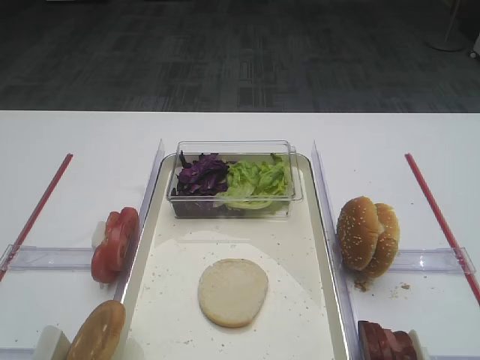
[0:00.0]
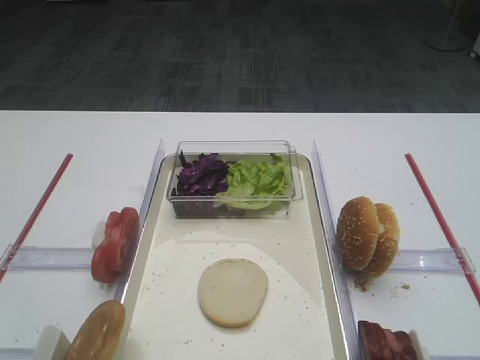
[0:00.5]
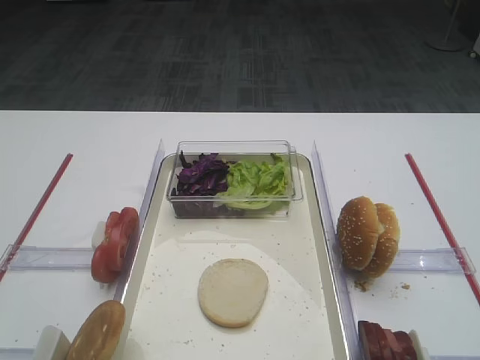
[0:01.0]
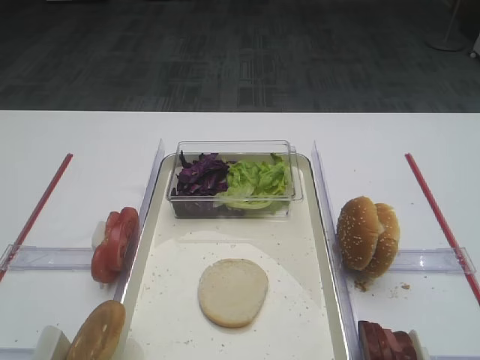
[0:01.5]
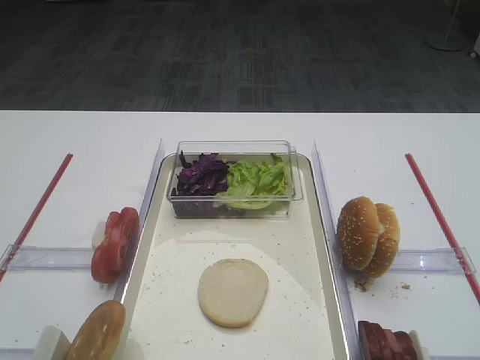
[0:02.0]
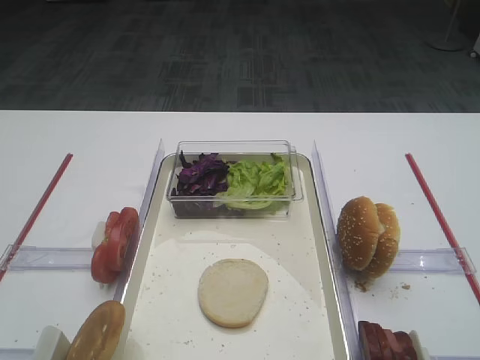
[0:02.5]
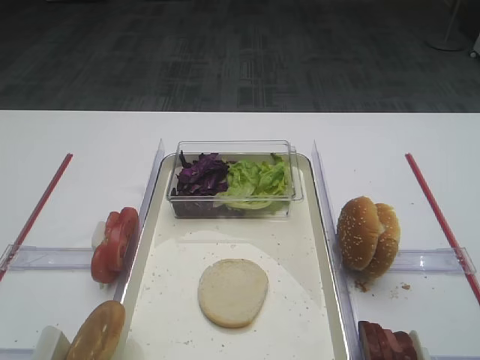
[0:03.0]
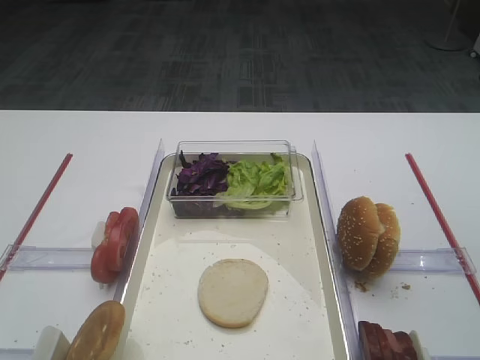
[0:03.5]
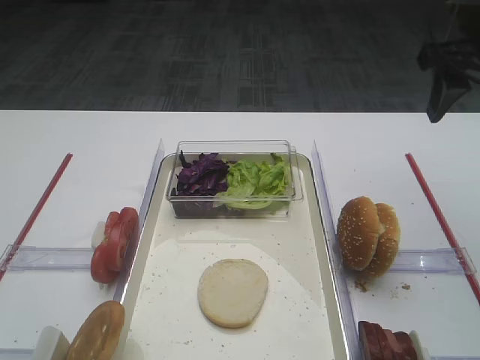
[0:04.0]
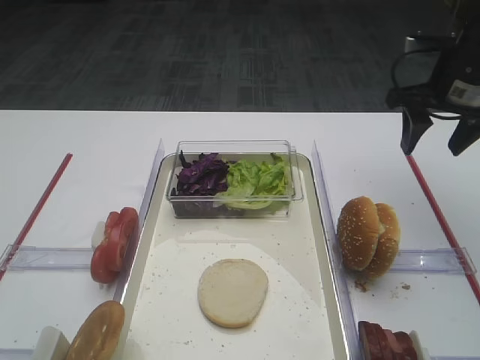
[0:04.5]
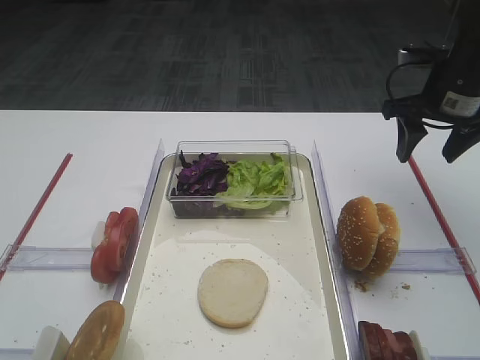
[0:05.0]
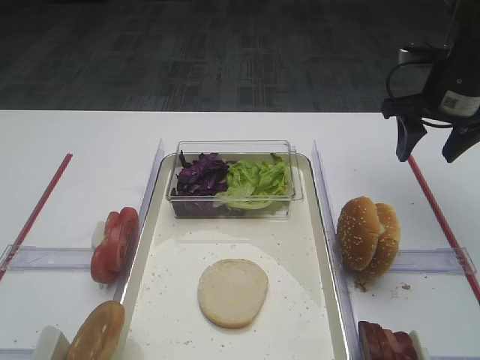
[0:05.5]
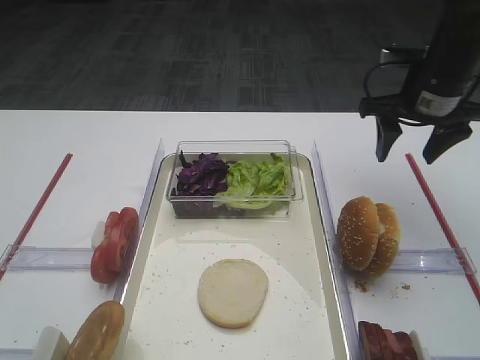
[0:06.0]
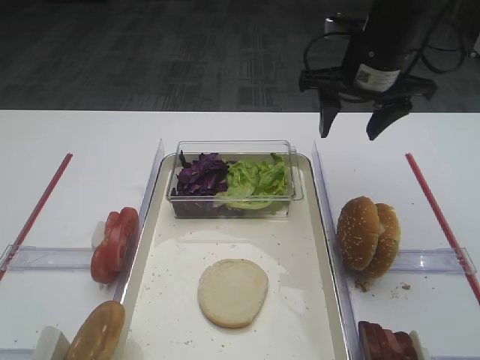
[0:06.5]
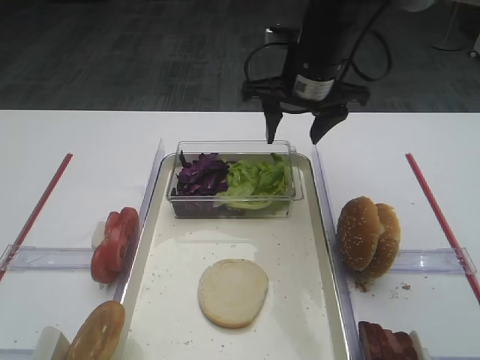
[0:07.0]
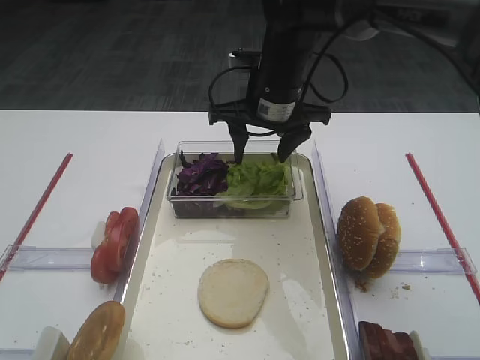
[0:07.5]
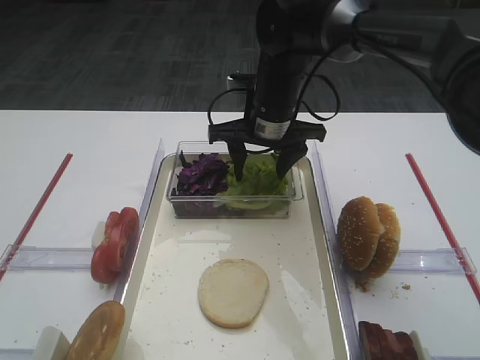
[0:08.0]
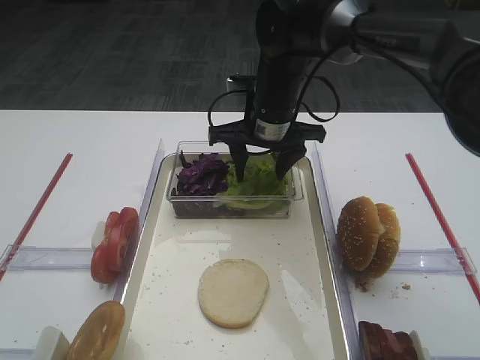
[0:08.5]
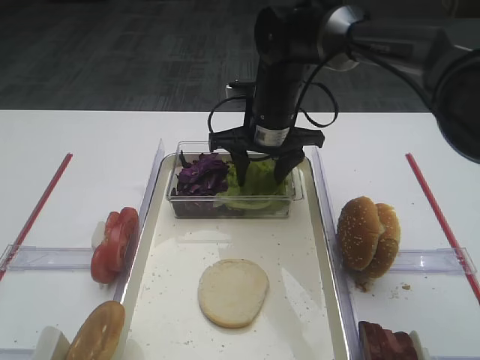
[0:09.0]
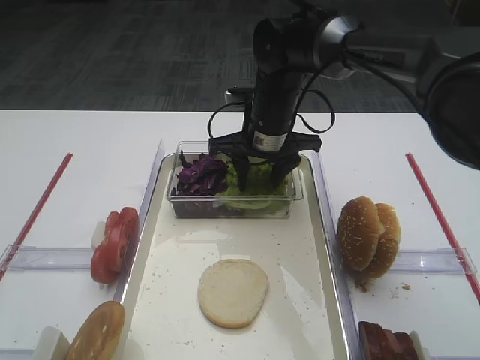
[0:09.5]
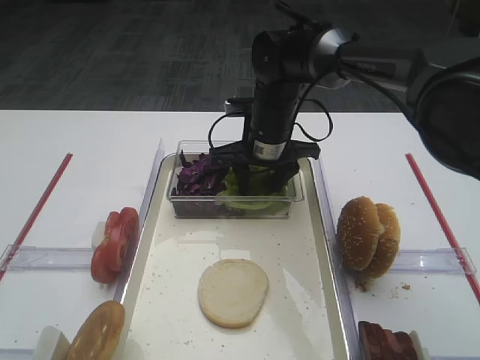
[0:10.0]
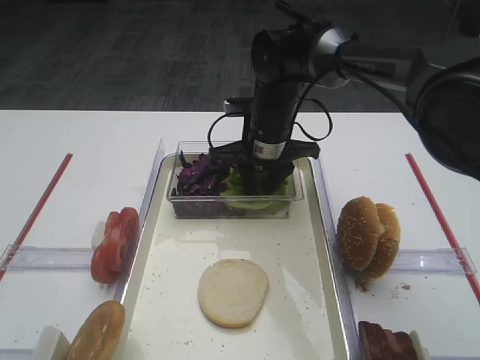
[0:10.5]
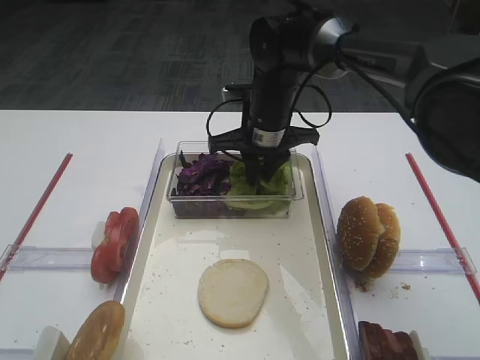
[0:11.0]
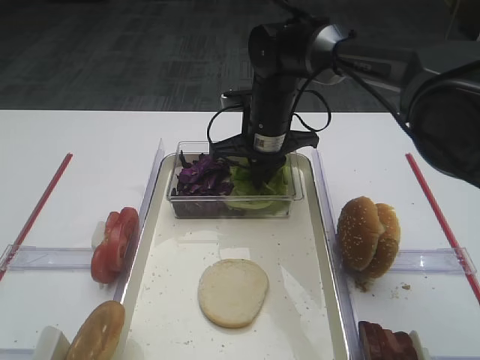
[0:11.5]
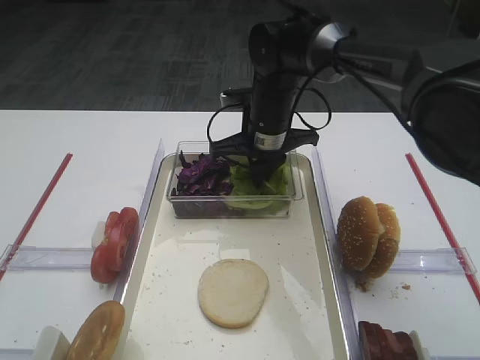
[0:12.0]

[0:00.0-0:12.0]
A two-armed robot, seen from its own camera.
0:02.0 to 0:04.0: The right gripper goes approximately 35 cm forward.
0:04.0 to 0:06.0: The right gripper goes roughly 10 cm downward and forward.
0:06.0 to 0:08.0: The right gripper is displaced to the left by some 20 cm.
0:08.0 to 0:10.0: The grippers stay close to where they were, moving slightly.
0:10.0 to 0:12.0: The right gripper closes up.

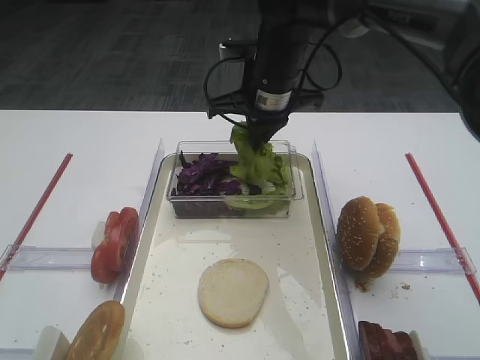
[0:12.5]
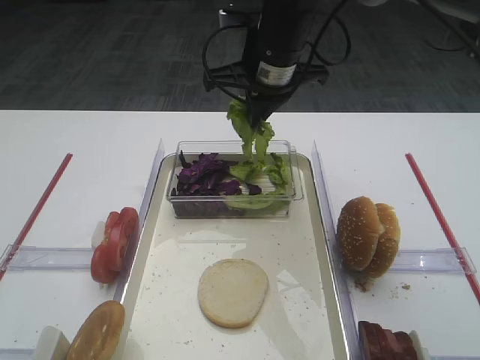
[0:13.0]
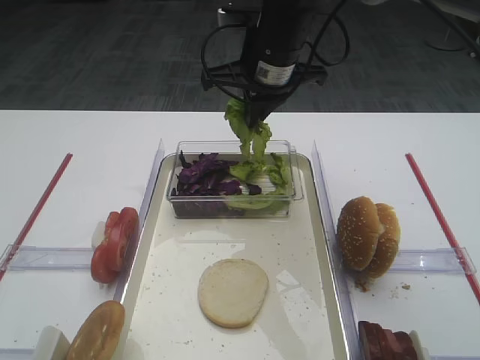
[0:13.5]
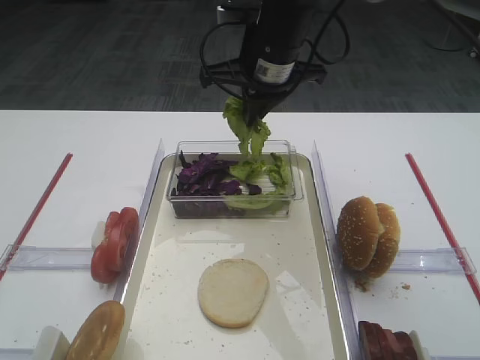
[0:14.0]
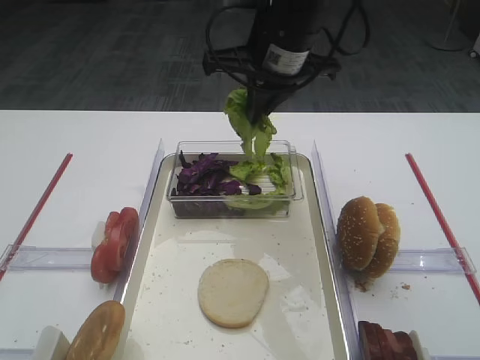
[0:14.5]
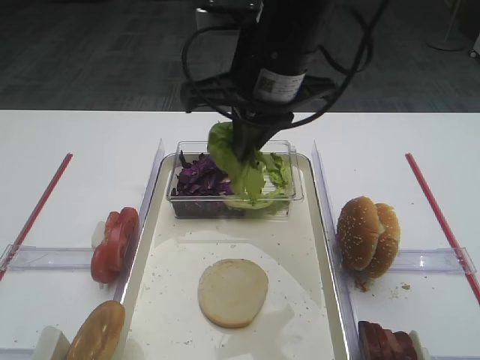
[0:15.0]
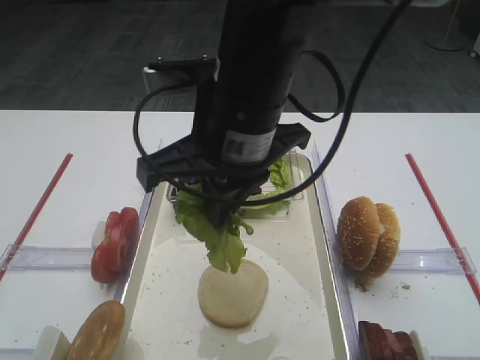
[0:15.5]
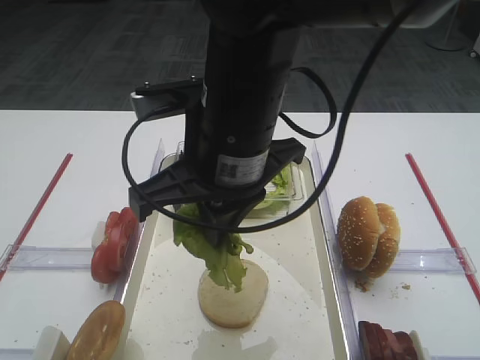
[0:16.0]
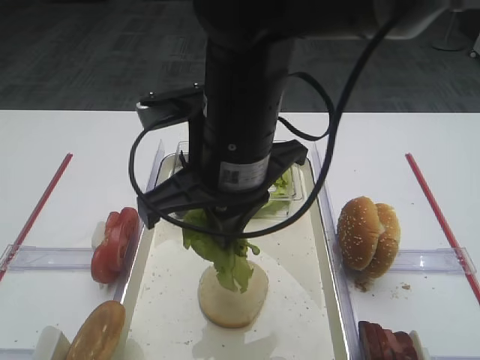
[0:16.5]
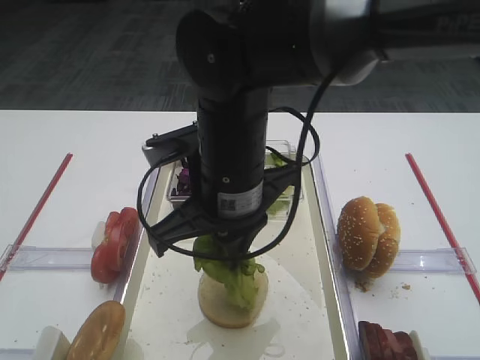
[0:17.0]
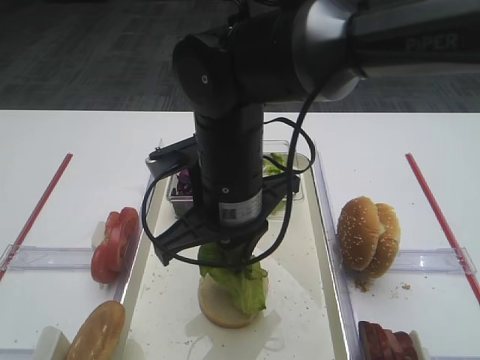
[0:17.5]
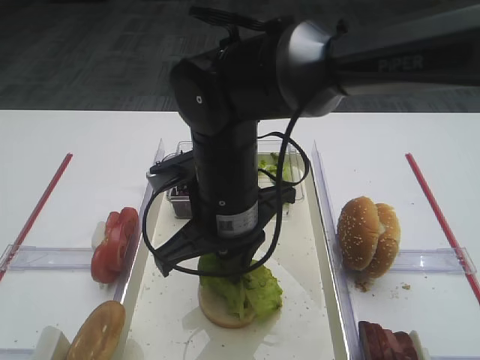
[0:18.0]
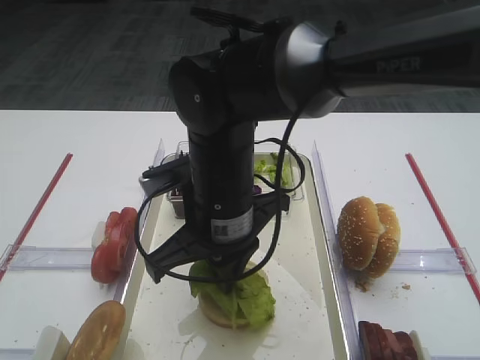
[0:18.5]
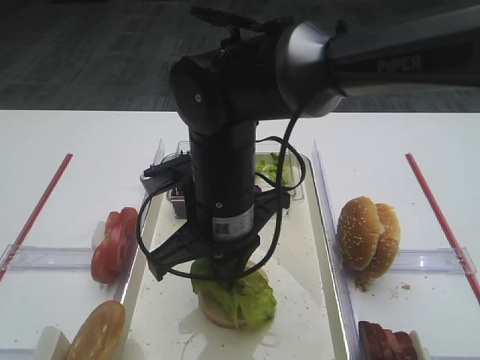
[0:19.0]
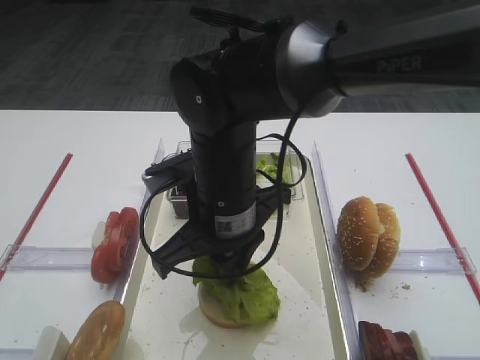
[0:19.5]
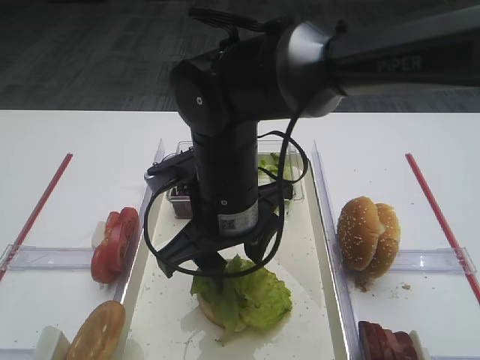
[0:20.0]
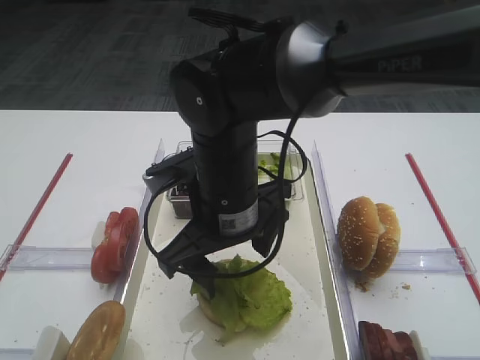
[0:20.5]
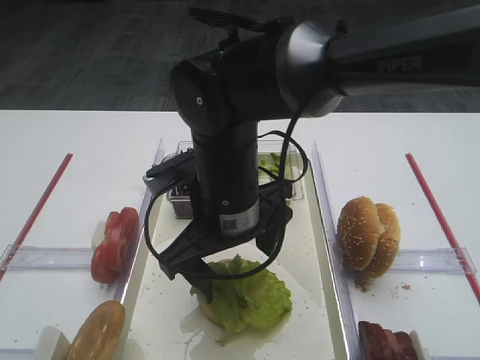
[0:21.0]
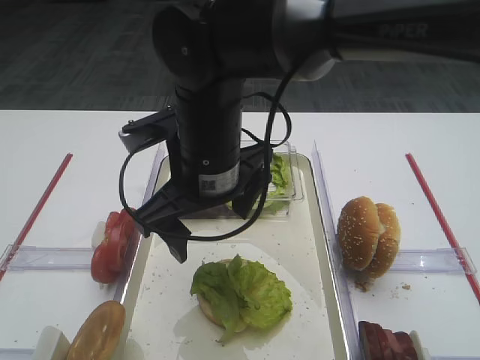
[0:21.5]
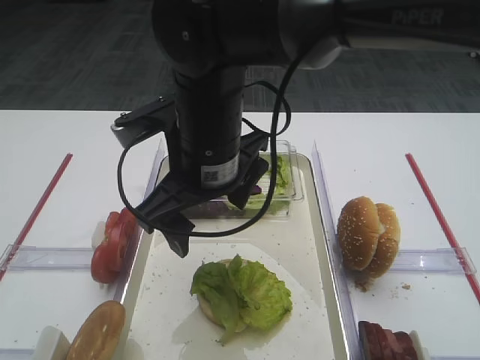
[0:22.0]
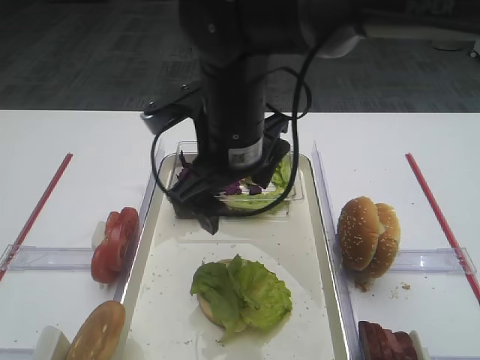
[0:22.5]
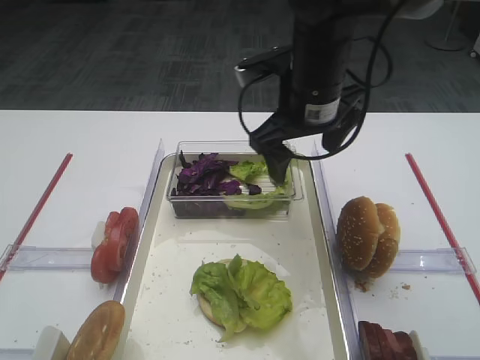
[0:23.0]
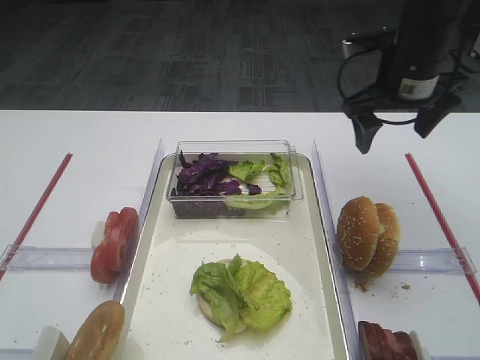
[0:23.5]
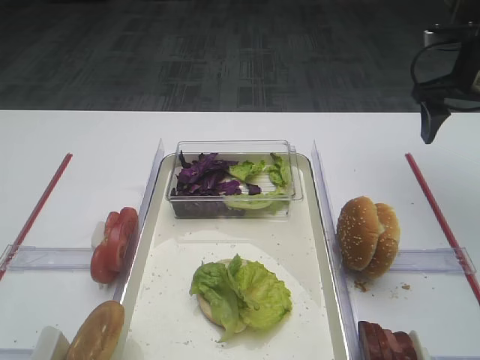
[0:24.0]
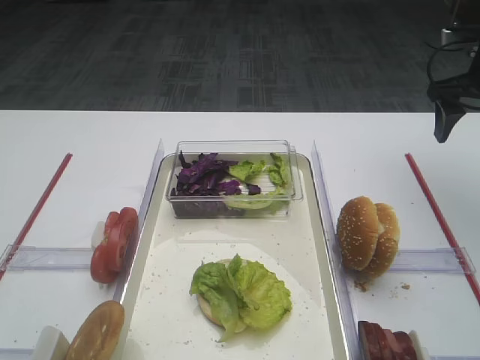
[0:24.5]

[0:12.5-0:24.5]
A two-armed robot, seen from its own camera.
Step, 0:13.0 to 0:21.5: Place the lettuce leaf on the bread slice with the right gripper.
0:12.5 to 0:14.5: The right gripper is displaced upward by roughly 5 cm.
0:14.5 to 0:16.5: The right gripper moves backward and to the left, approximately 15 cm.
0:16.5 to 0:18.5: The right gripper travels downward by roughly 5 cm.
0:18.5 to 0:20.5: The right gripper opens up.
0:20.5 to 0:22.5: The right gripper changes place by roughly 5 cm.
0:22.5 to 0:24.5: The right gripper is displaced to the right by some 35 cm.

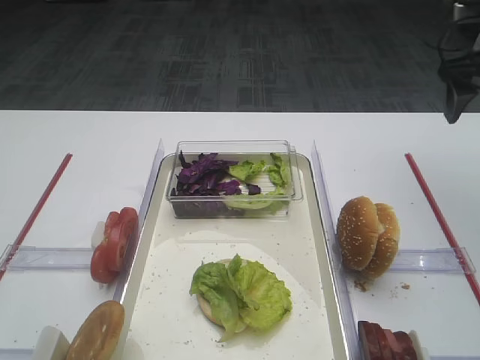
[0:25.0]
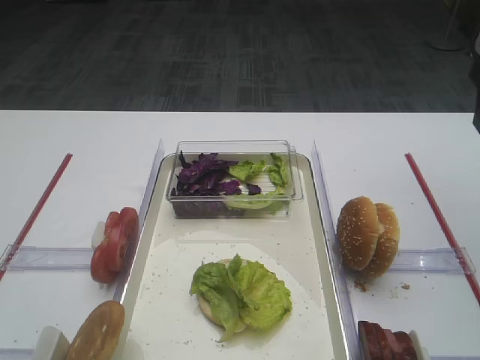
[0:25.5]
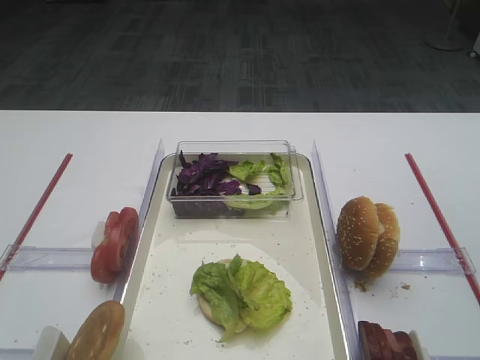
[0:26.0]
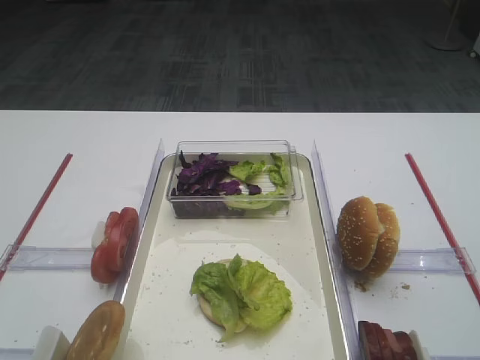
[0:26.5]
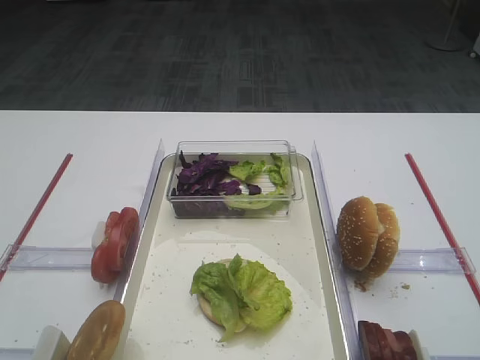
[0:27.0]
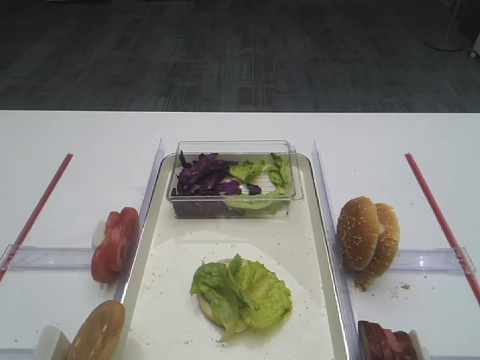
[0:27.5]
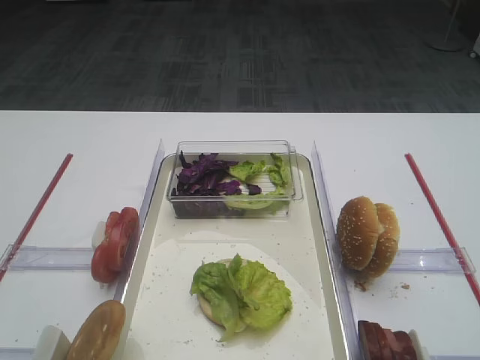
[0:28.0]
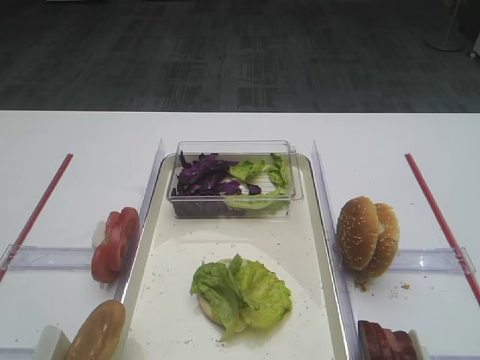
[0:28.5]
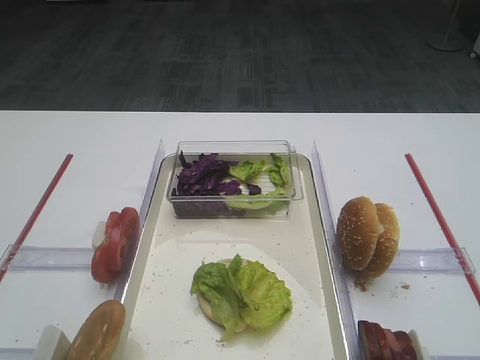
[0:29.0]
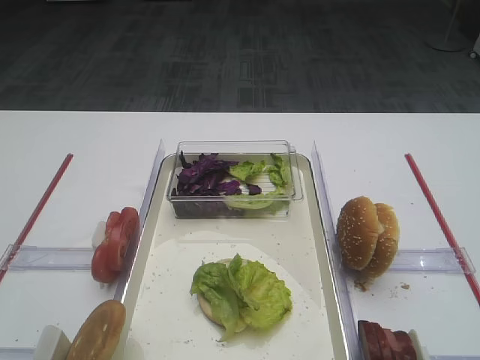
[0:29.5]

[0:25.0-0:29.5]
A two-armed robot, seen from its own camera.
0:25.0 to 0:27.0: The right gripper moves backward, some 35 cm.
